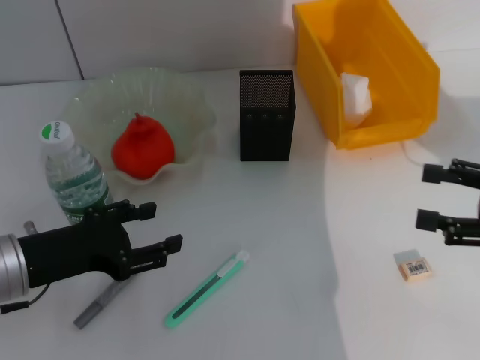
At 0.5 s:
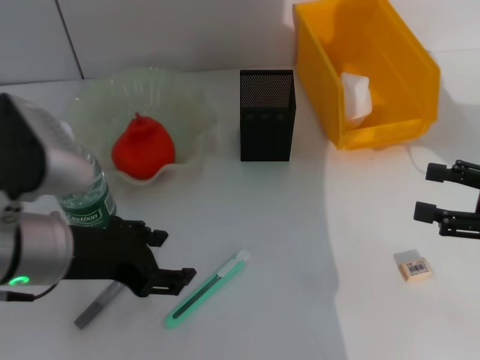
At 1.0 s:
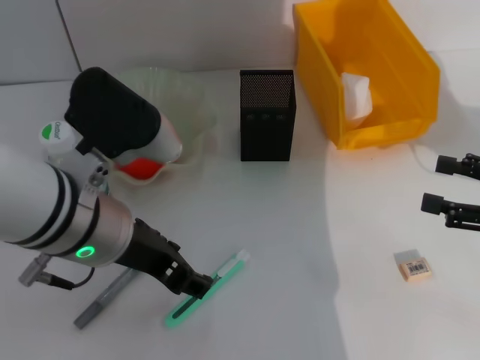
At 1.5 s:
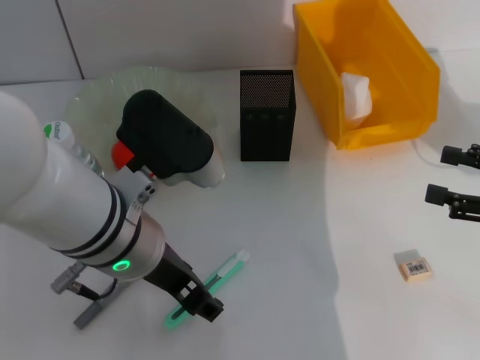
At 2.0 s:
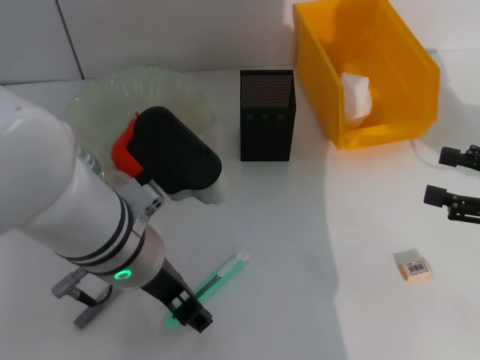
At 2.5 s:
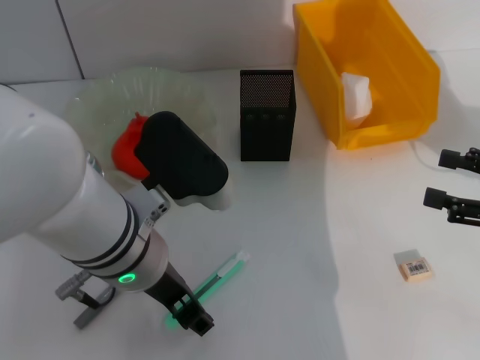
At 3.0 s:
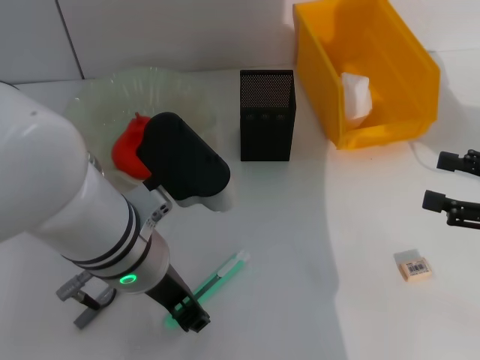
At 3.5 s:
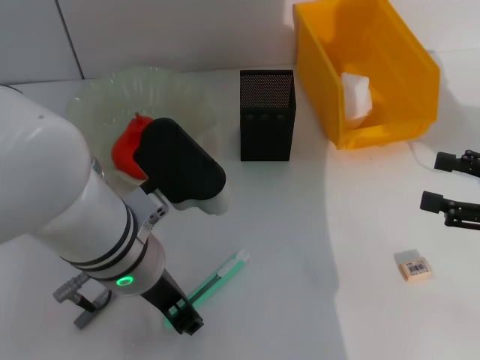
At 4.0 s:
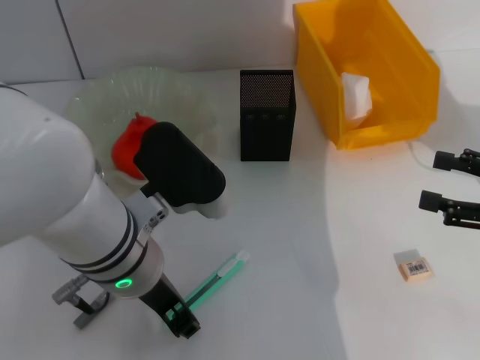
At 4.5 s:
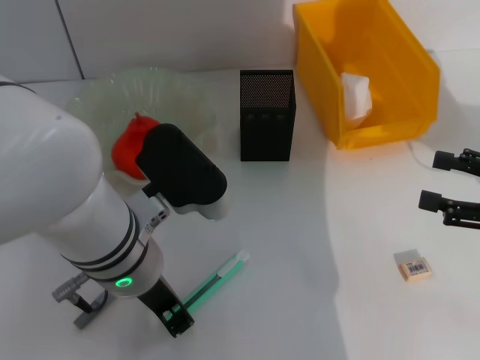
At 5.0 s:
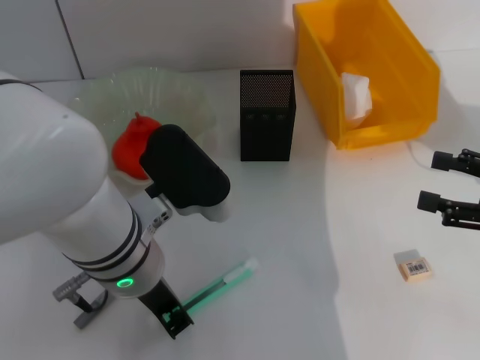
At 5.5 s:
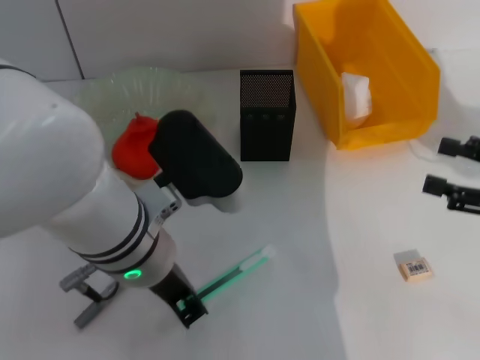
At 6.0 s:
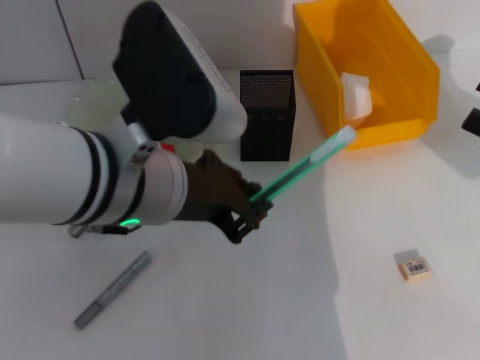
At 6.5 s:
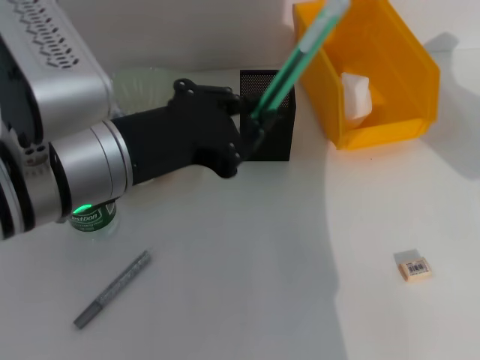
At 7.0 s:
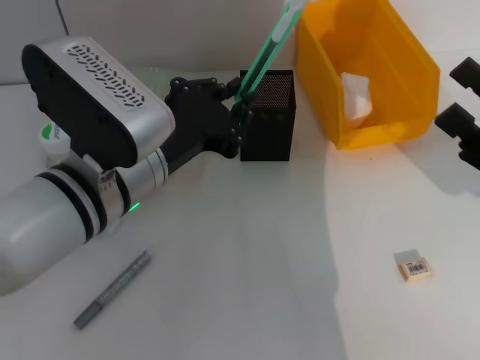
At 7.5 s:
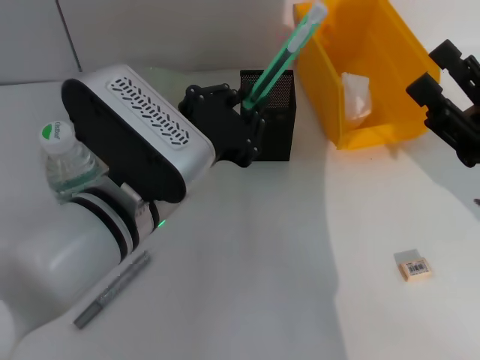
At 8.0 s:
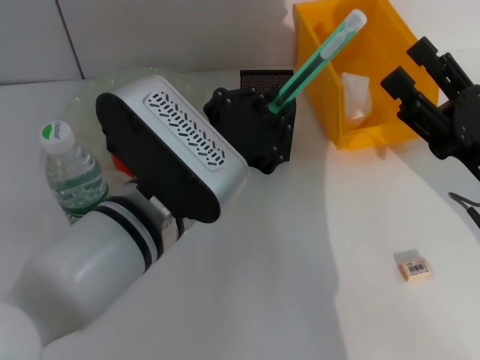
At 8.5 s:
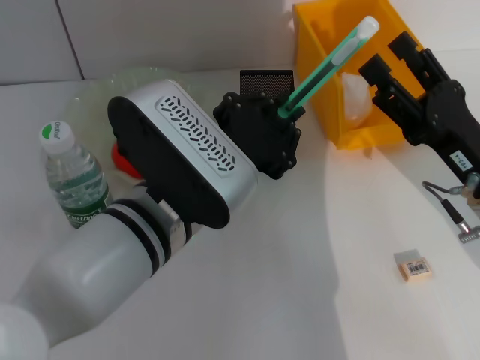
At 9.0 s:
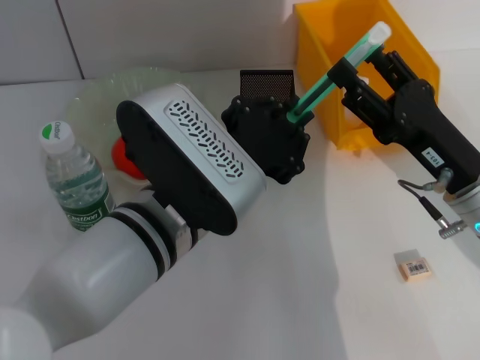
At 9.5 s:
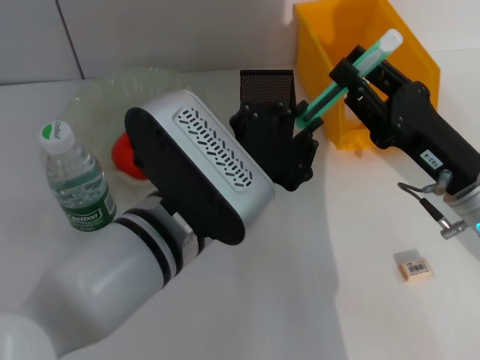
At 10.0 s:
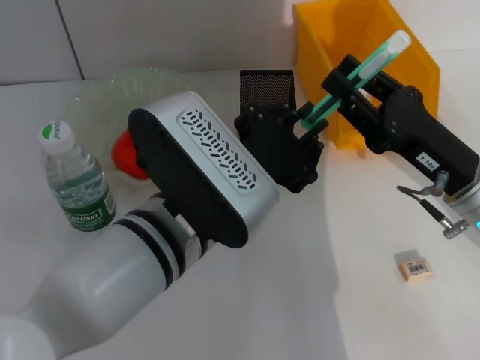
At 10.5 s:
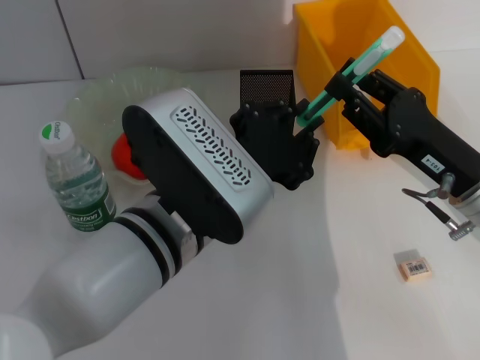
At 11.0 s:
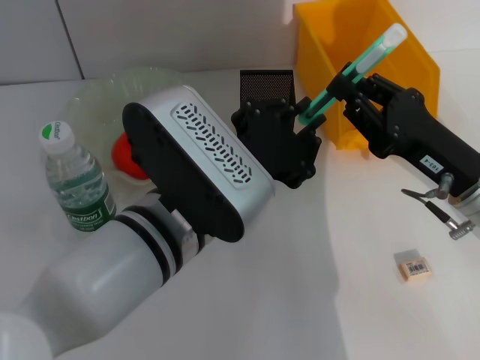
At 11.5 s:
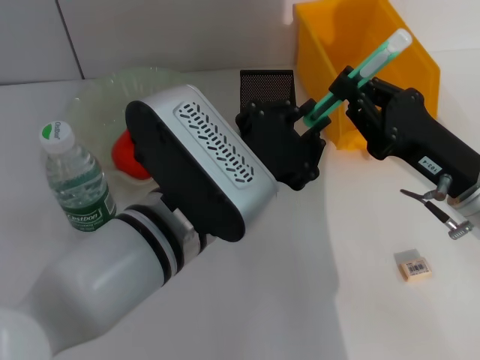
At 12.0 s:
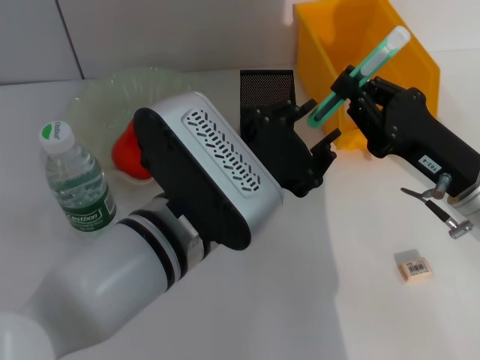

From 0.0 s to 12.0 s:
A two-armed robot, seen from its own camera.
Step, from 0.0 s to 5.0 s: Grab the blue utility knife with the left hand.
Step, from 5.5 s to 11.5 s: Pass the blue utility knife from the left hand to the right hand.
From 0.0 s to 2.0 s: The left gripper shifts about 15 cm to the right and upward.
From 2.0 s to 4.0 s: The two grippers keep their place.
From 4.0 s to 6.0 s: The left gripper shifts some 10 cm upward, and closes up.
From 6.0 s to 8.0 s: The left gripper is displaced downward by approximately 5 cm, while the right gripper heads to the left, covering about 10 cm.
From 8.0 s to 10.0 s: The right gripper closes up.
From 10.0 s to 12.0 s: The right gripper closes its fingers.

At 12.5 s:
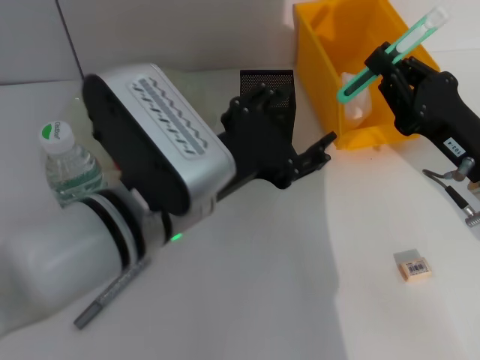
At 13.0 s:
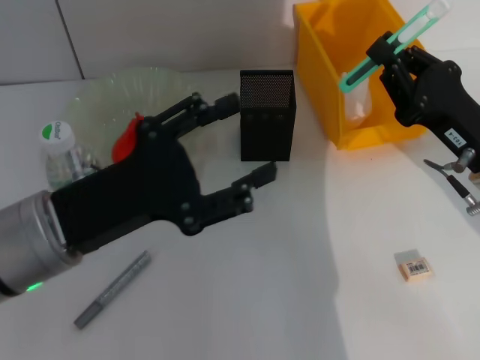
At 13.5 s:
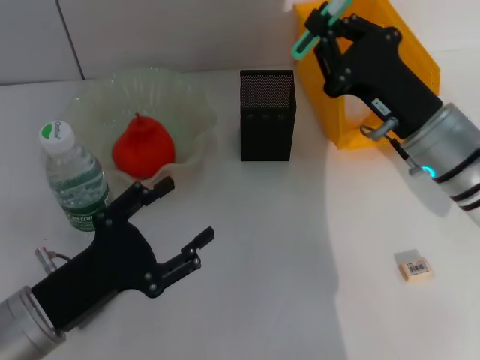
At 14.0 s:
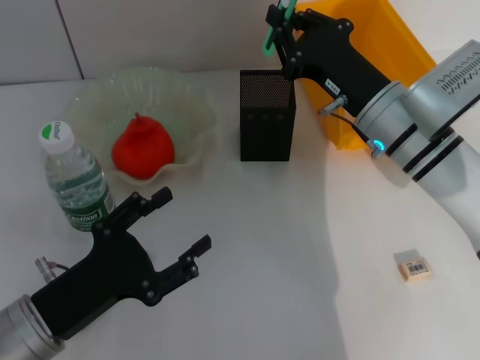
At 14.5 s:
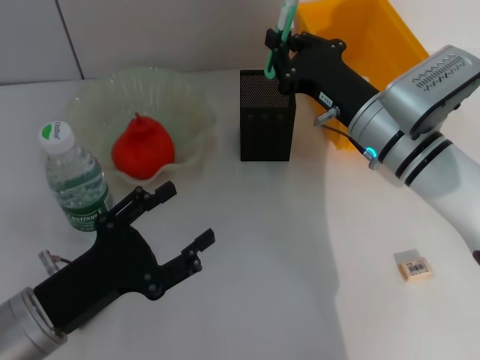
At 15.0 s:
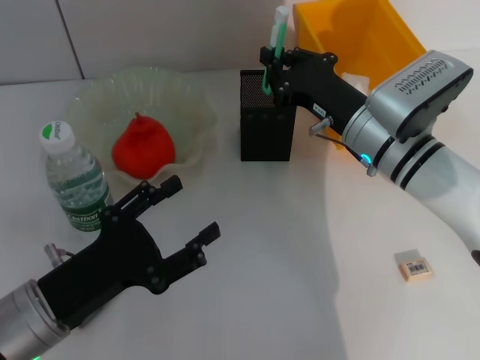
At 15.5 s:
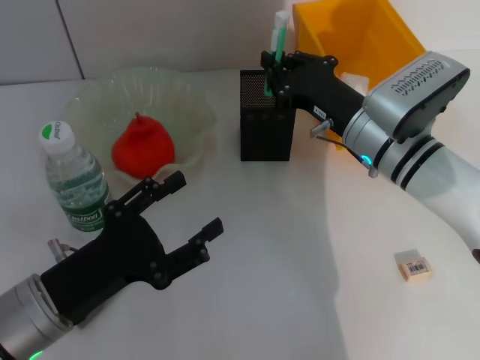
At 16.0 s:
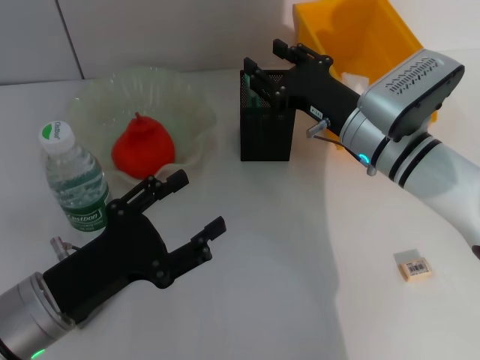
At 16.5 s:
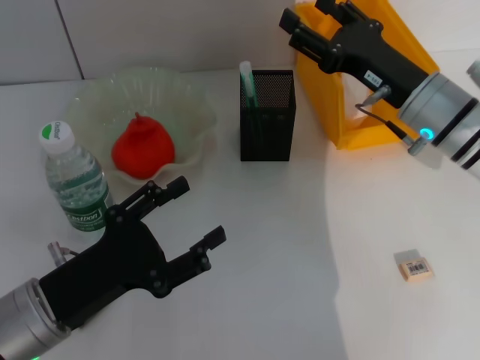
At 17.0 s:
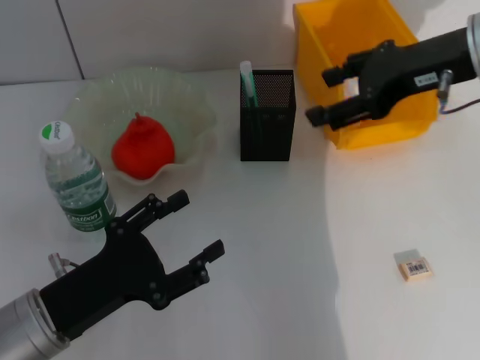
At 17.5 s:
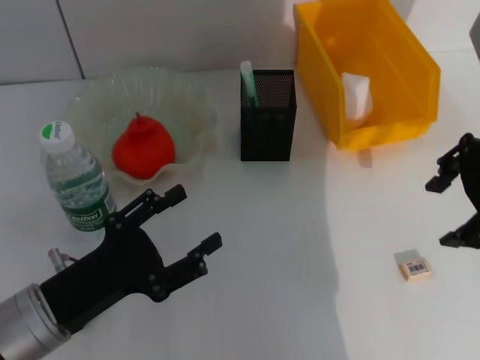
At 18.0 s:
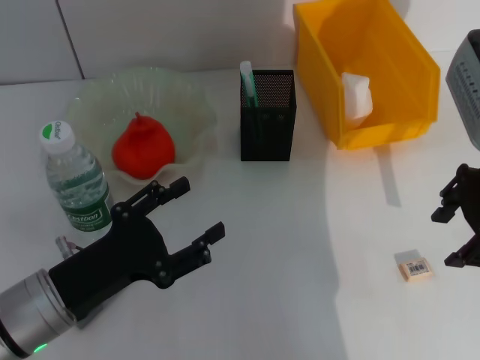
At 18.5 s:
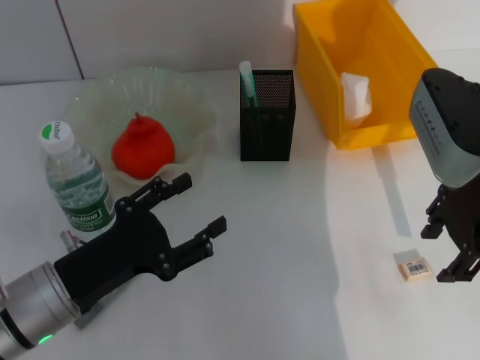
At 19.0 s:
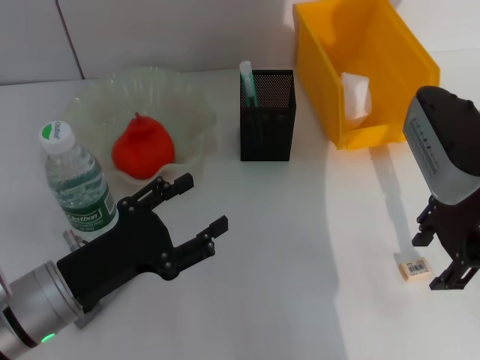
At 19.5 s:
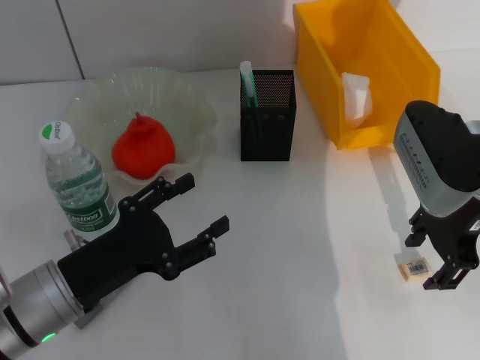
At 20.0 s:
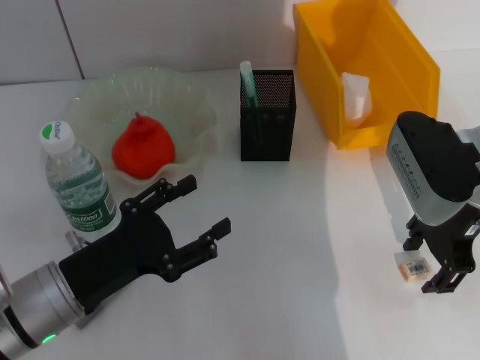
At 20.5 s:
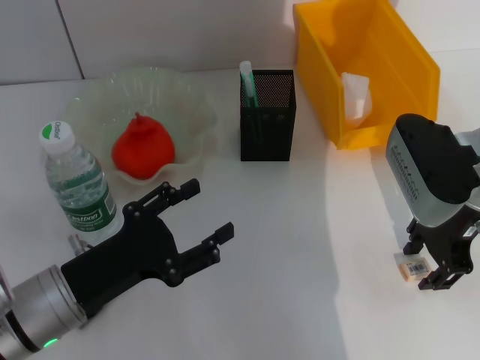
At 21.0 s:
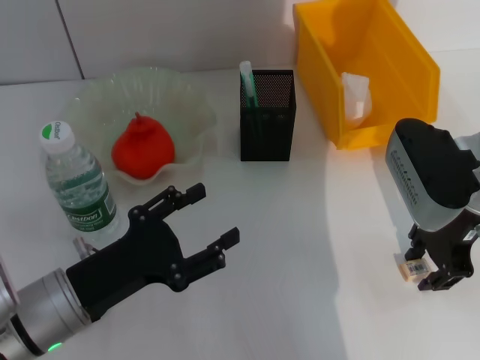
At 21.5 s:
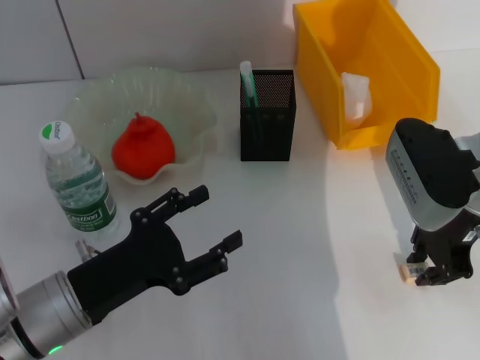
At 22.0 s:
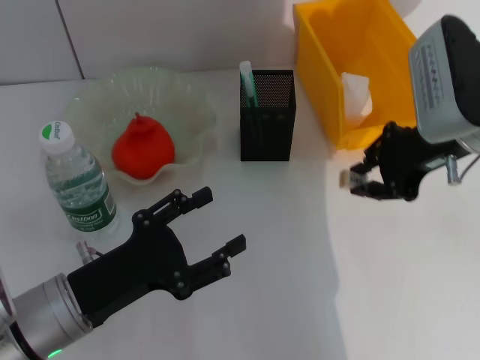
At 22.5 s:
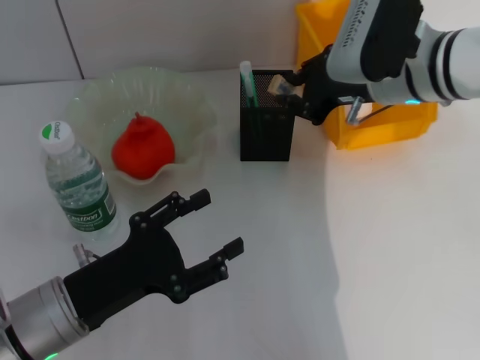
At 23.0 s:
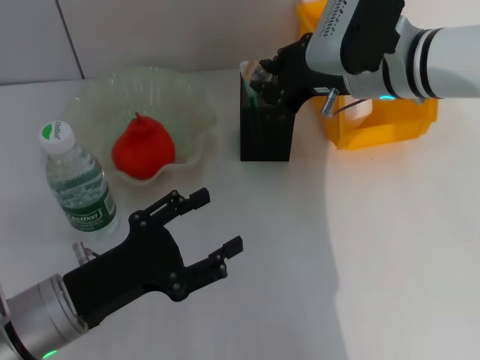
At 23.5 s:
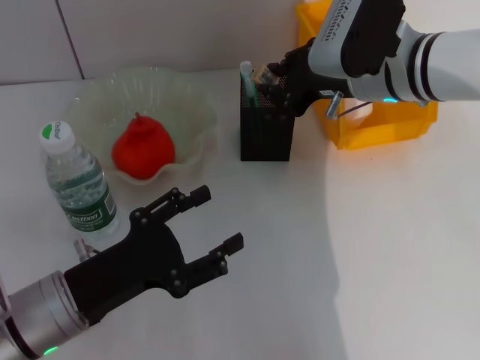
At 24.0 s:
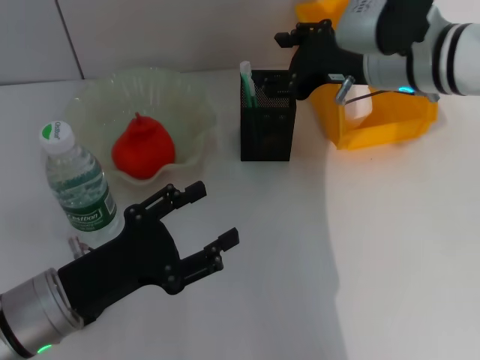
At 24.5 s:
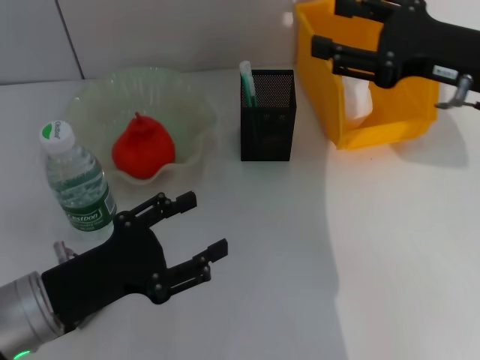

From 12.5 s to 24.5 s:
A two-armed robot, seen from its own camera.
Step, from 12.5 s to 16.0 s: Place the blue utility knife into the pen holder with the right hand.
Step, from 16.5 s to 21.0 s: Grab the eraser with the right hand.
Step, from 21.5 s to 23.5 s: Put the eraser into the pen holder with the right hand.
From 12.5 s to 14.5 s: The right gripper travels to the left and forward by roughly 10 cm. The left gripper shifts roughly 20 cm to the left and downward.
From 14.5 s to 16.5 s: The right gripper opens up.
From 16.5 s to 18.5 s: The right gripper travels upward by some 10 cm.
From 18.5 s to 20.5 s: The grippers make only small movements.
From 20.5 s to 22.5 s: The right gripper moves forward and to the left, approximately 10 cm, and closes its fingers.
From 22.5 s to 24.5 s: The right gripper heads to the right and backward, covering about 10 cm, and opens its fingers.

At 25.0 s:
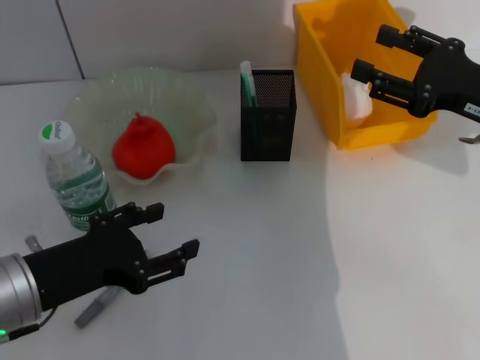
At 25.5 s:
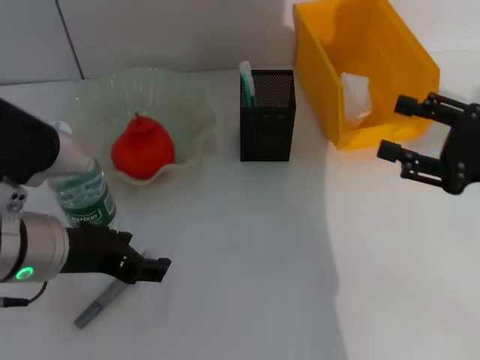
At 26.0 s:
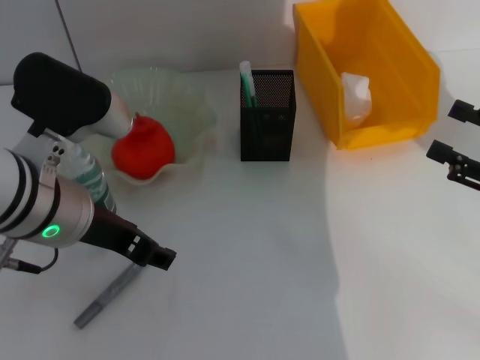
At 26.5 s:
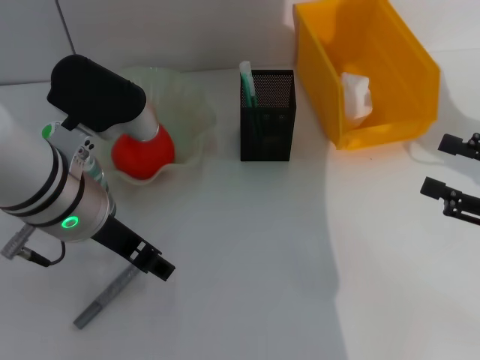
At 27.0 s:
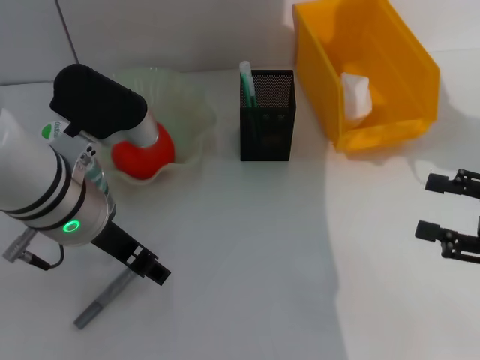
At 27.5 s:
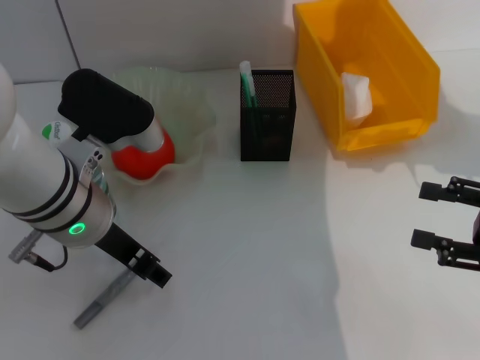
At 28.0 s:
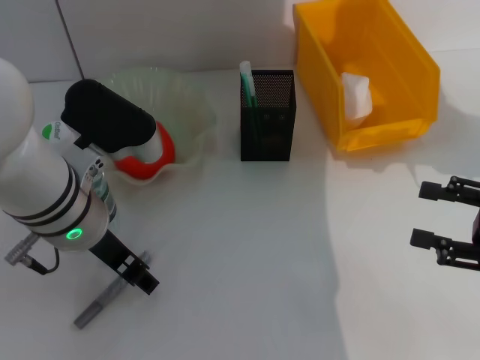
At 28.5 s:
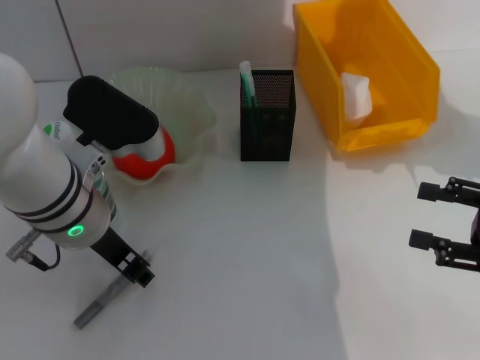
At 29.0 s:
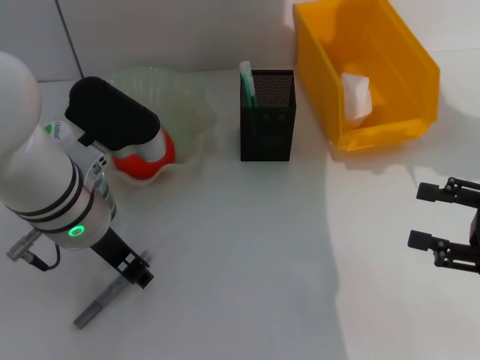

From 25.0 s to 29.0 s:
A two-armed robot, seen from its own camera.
From 25.0 s to 27.0 s: The left gripper goes roughly 15 cm forward, to the right and upward, while the right gripper is displaced backward, to the right and downward by about 10 cm.
From 27.0 s to 29.0 s: The grippers move only a little.
